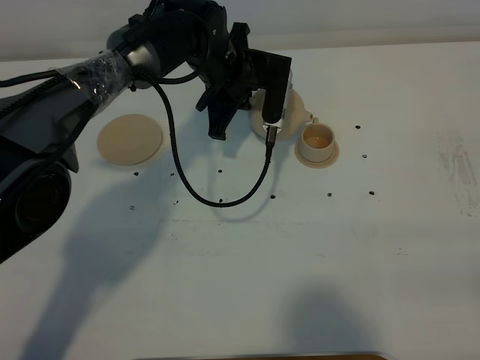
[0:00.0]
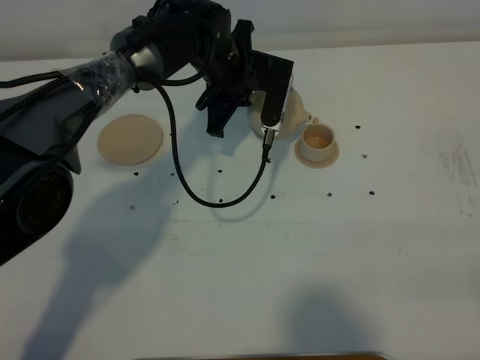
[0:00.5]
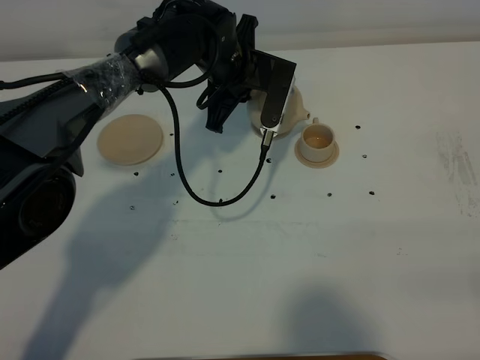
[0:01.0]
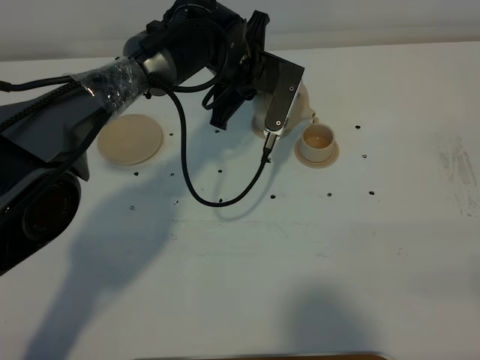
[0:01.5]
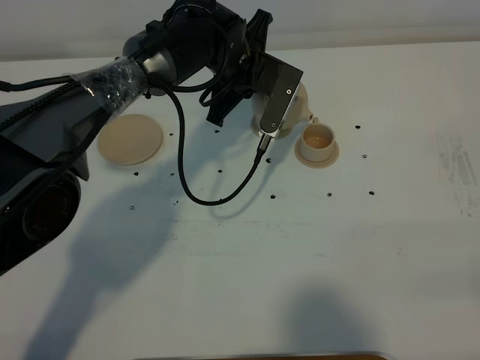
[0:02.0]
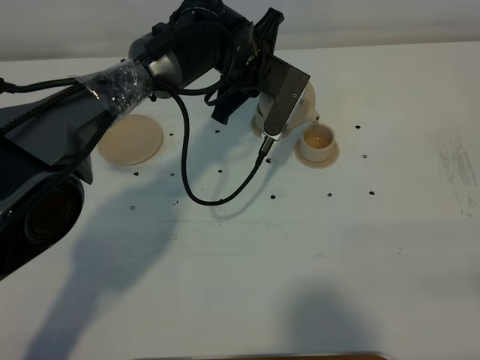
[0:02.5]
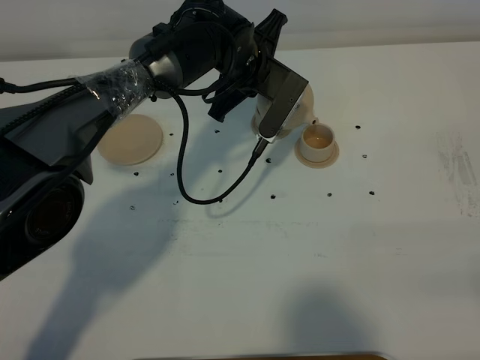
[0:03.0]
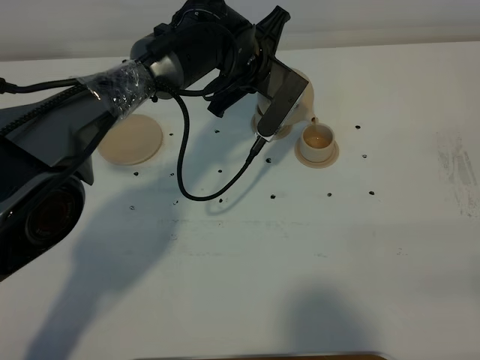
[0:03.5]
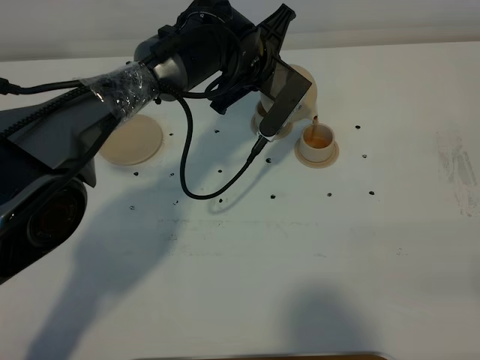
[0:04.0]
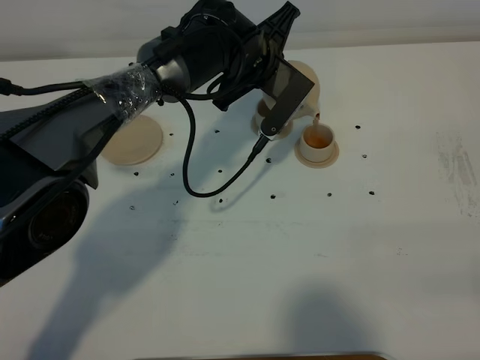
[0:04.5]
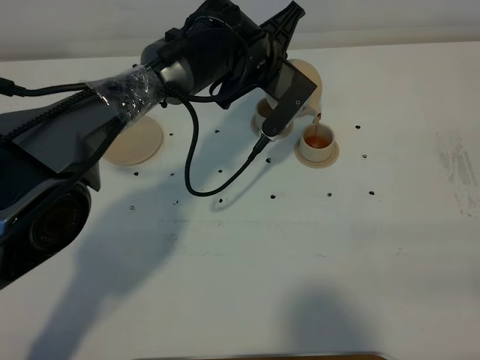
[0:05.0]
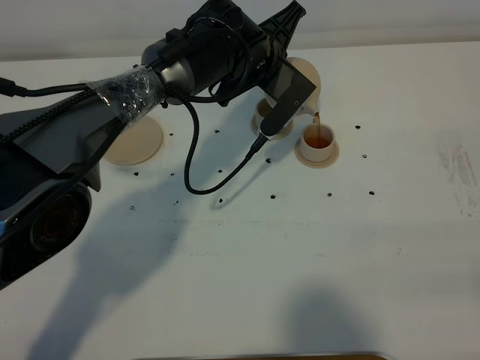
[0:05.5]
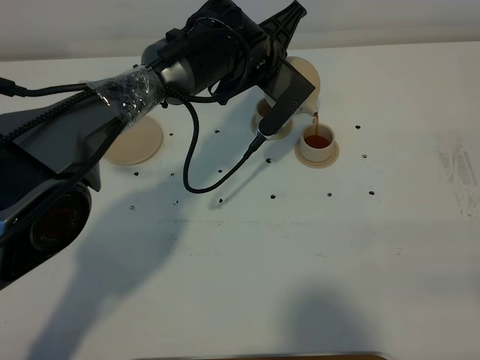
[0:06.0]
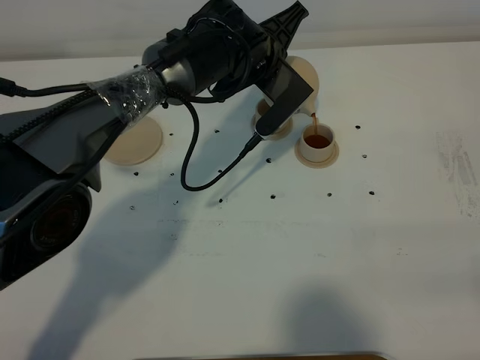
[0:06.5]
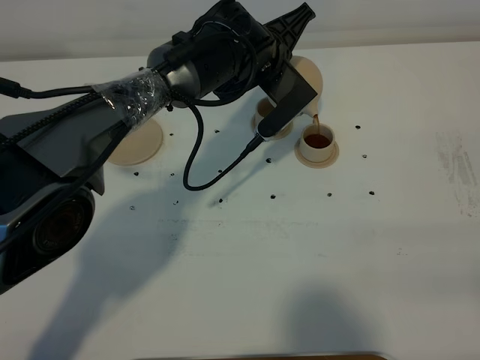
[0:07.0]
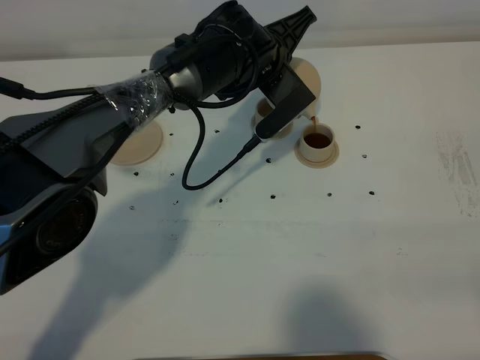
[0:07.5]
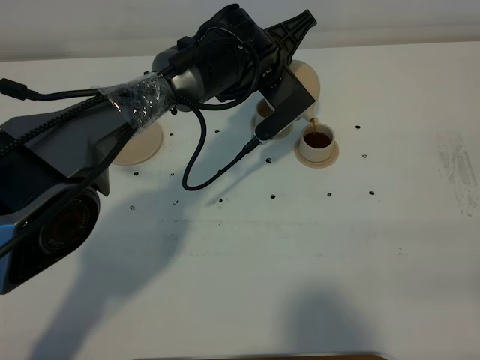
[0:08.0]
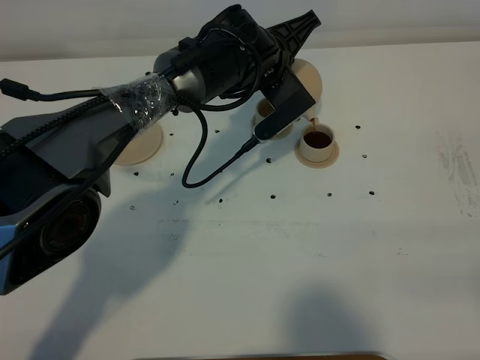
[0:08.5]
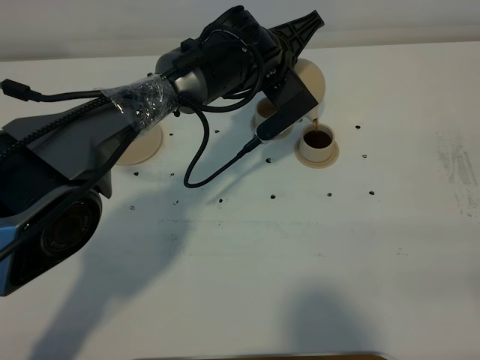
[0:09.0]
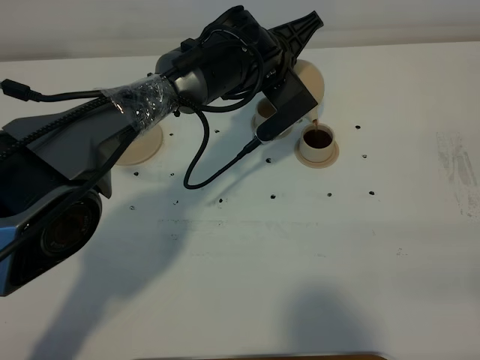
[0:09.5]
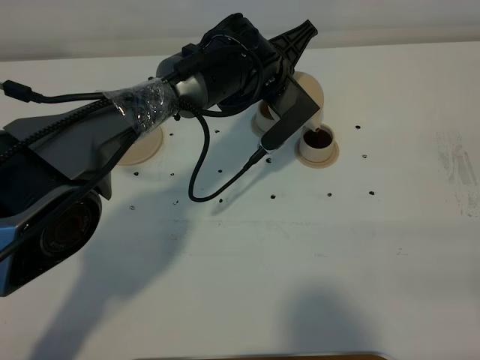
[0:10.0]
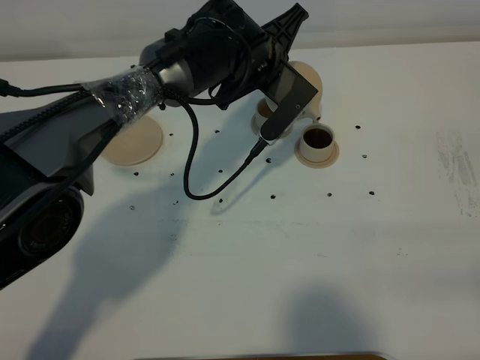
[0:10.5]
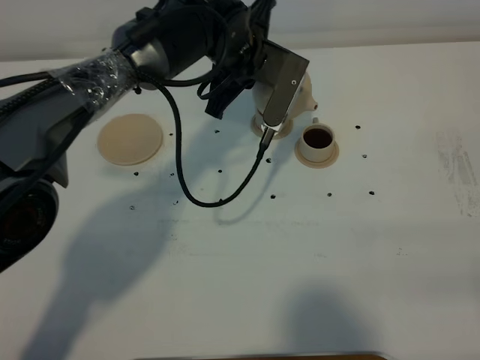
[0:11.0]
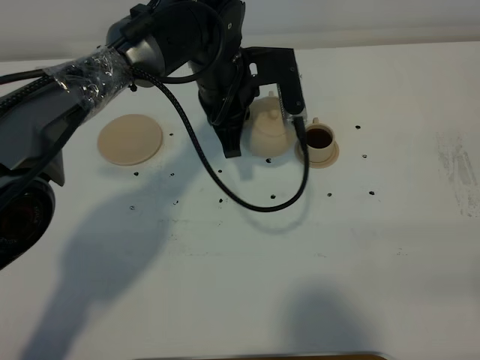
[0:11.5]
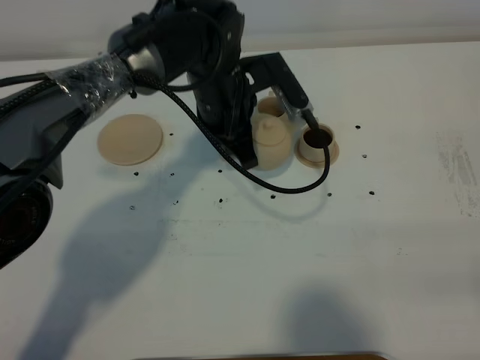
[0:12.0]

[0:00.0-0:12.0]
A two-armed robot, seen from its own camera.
Task of the whole recording: grasp the brown teapot and pour the tea into the two brown teacups one by one, put the brown teapot back in its original place.
0:00.0 to 0:02.0: The grippers make only small movements.
0:02.0 to 0:04.0: The grippers move only a little.
0:04.0 to 0:08.0: The grippers make only small movements.
0:08.0 to 0:10.0: Both grippers stay about where they are.
0:10.0 to 0:12.0: The left gripper moves approximately 5 cm.

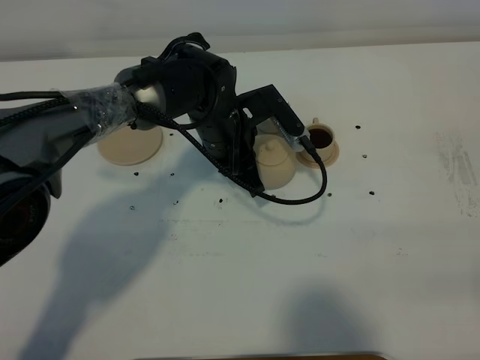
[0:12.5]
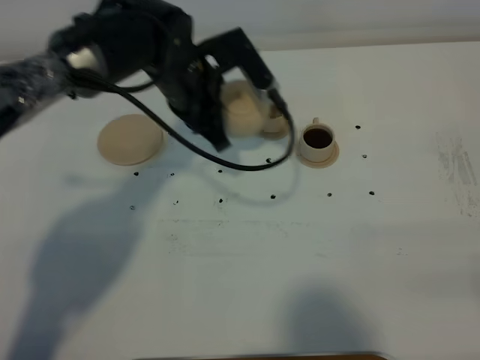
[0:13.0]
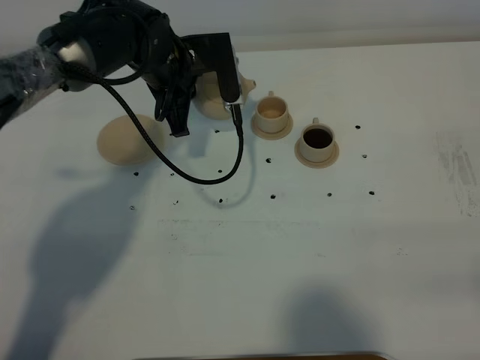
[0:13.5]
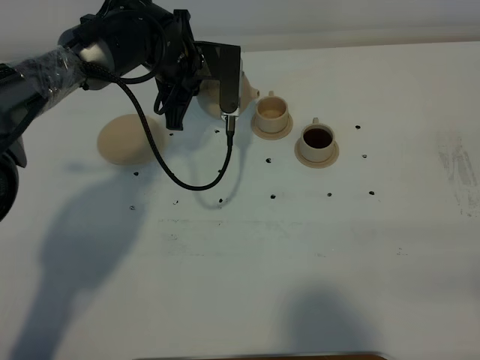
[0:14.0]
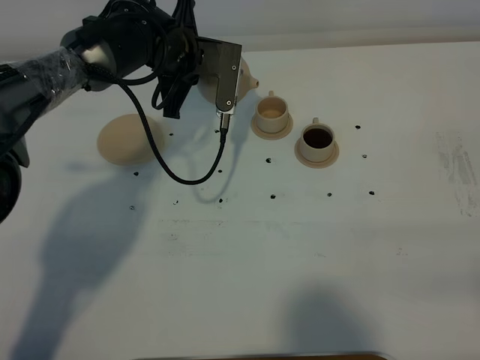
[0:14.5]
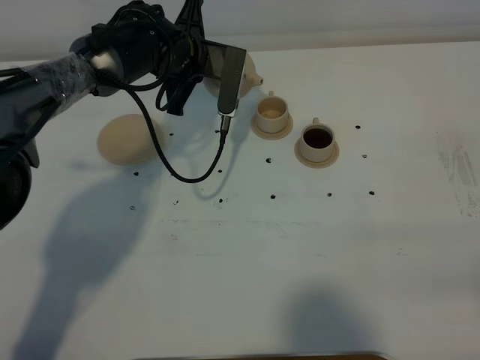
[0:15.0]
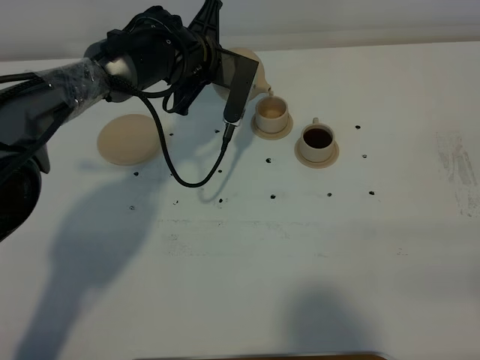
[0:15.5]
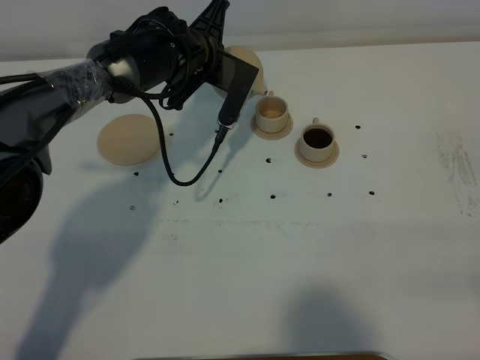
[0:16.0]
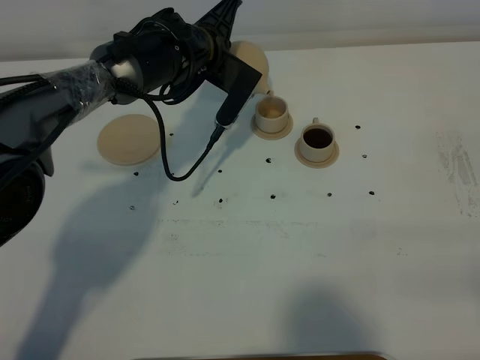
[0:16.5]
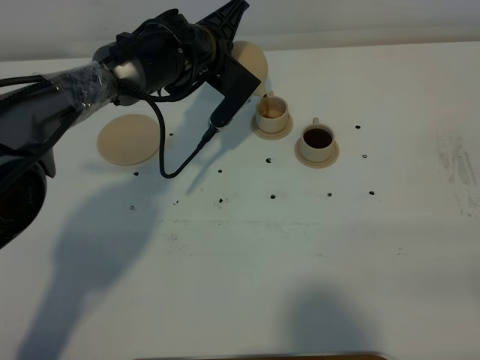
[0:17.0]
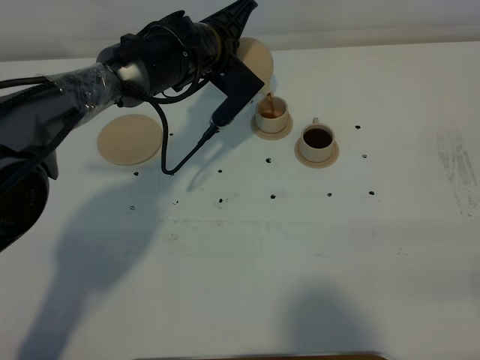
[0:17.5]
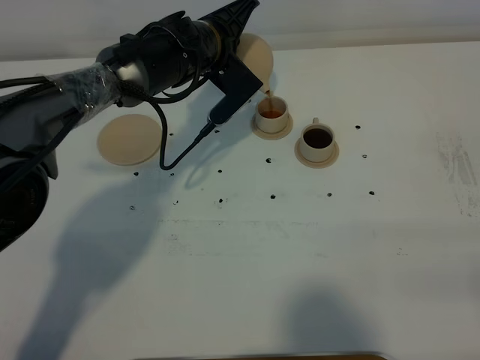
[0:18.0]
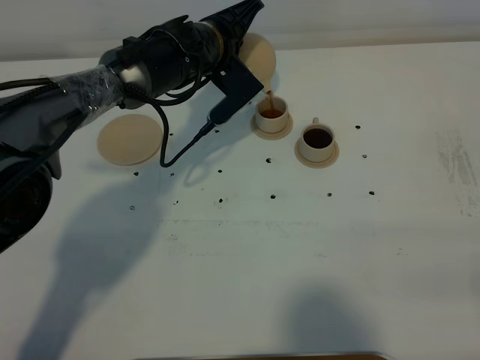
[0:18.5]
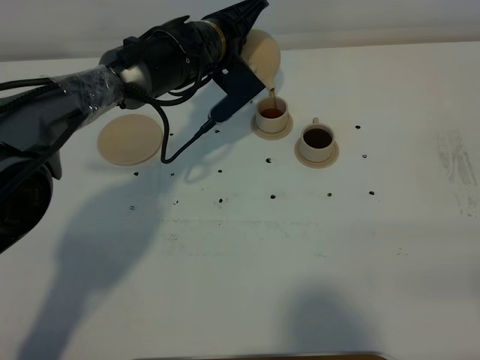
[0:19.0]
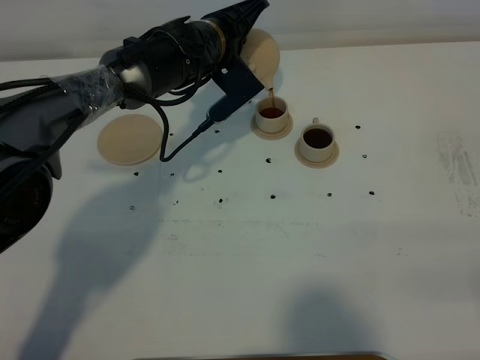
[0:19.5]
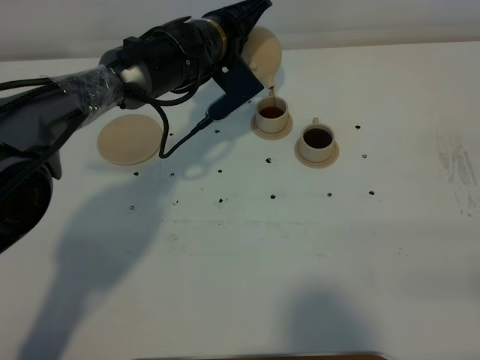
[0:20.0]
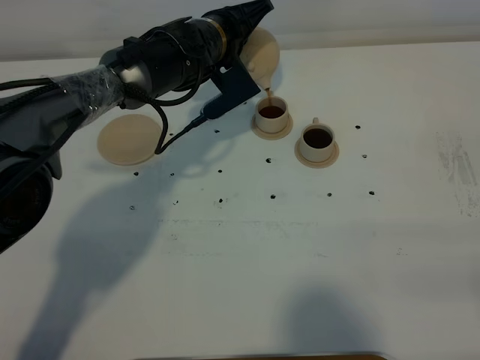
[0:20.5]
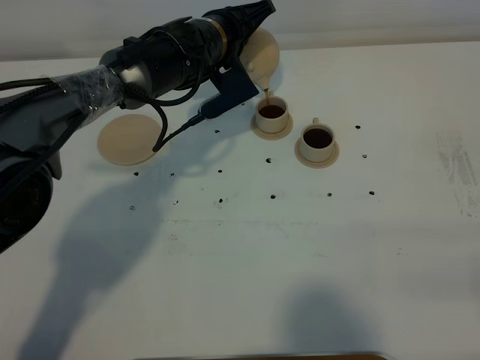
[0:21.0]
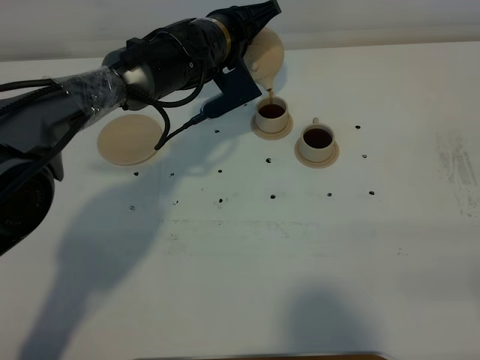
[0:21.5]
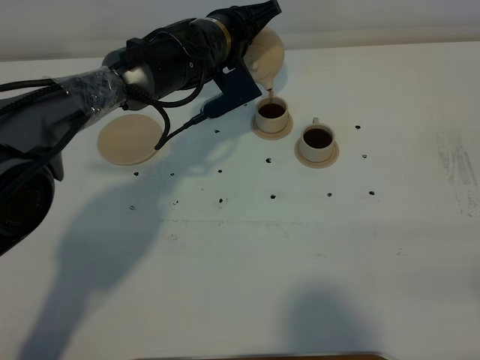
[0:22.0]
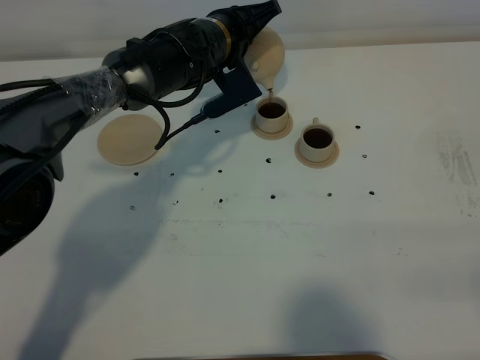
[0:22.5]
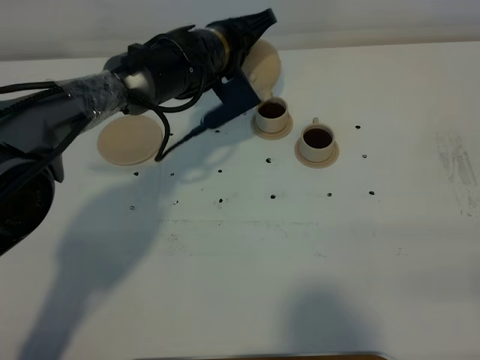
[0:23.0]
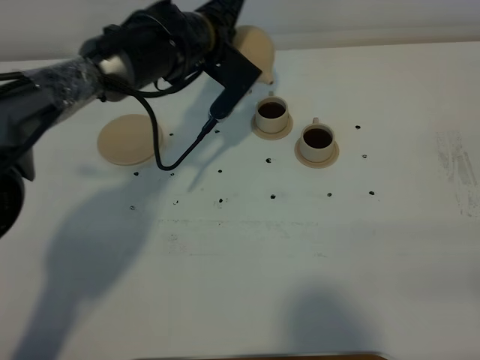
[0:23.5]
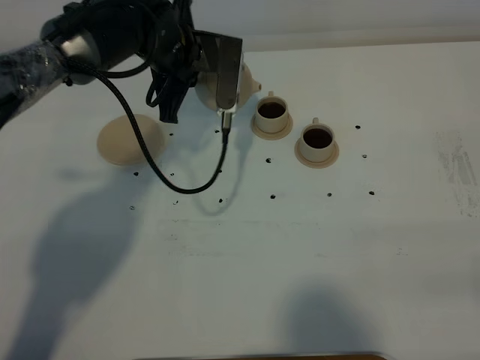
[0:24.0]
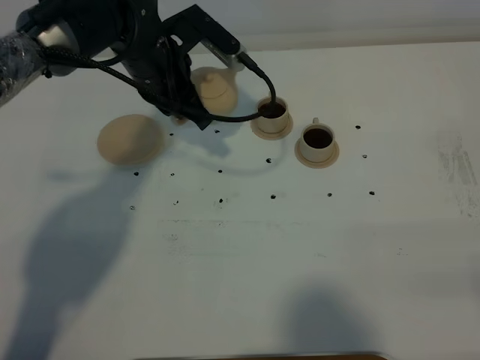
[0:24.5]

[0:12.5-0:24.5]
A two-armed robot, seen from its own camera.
Task of the whole recording: grasp the brown teapot and pour the tea into the two brown teacups one by one, put the brown teapot back in its original place.
Step, 0:12.5 to 0:23.5: Pour tea into the teacup with the left gripper.
0:12.5 to 0:14.5: The left gripper moves forward and to the left, some 10 cm.
0:16.5 to 0:18.5: The grippers make only small movements.
0:18.5 to 0:20.5: The grippers make only small movements.
0:20.5 to 0:22.5: Both grippers stay about where they are.
0:22.5 to 0:24.5: The left gripper shifts roughly 5 cm to the left.

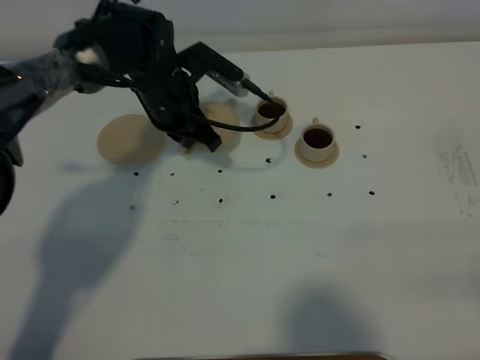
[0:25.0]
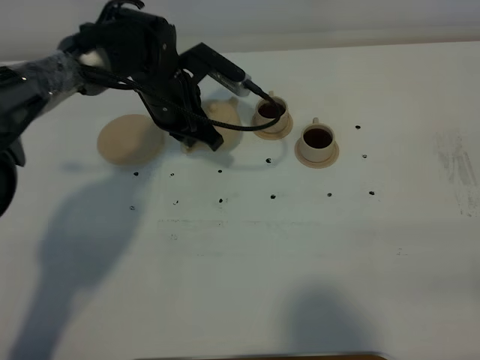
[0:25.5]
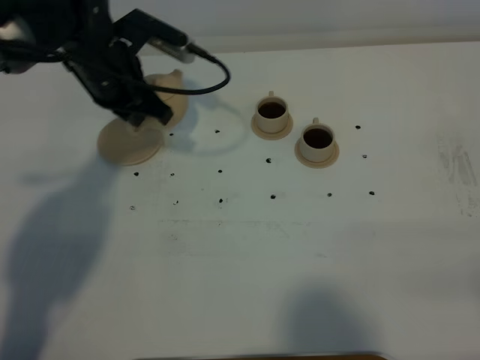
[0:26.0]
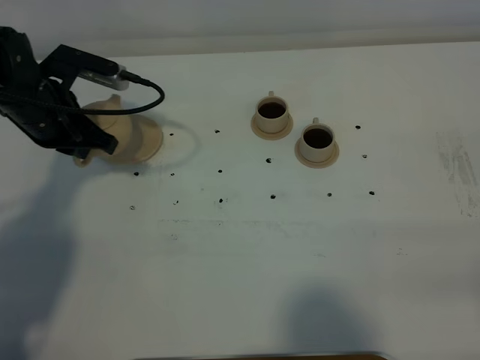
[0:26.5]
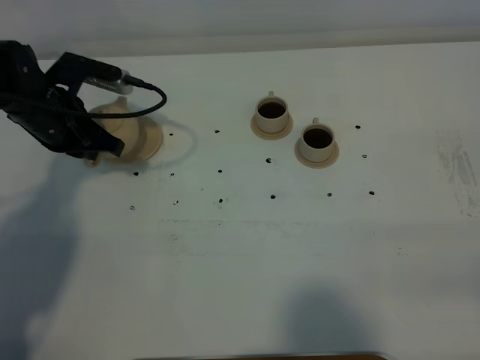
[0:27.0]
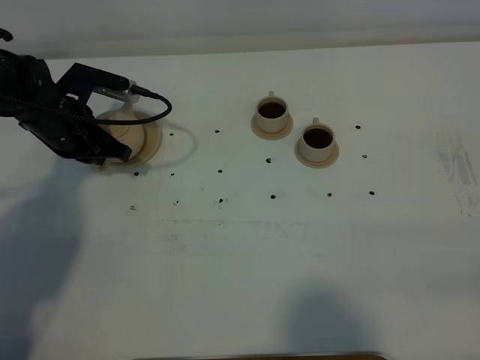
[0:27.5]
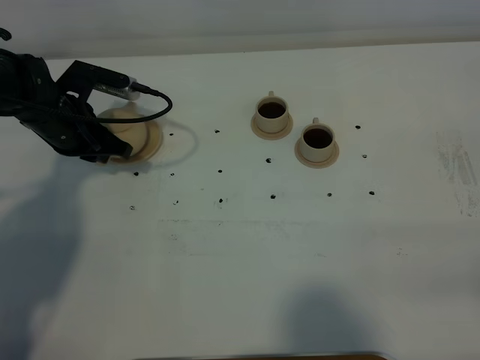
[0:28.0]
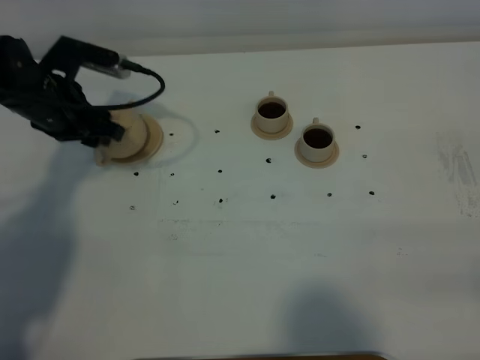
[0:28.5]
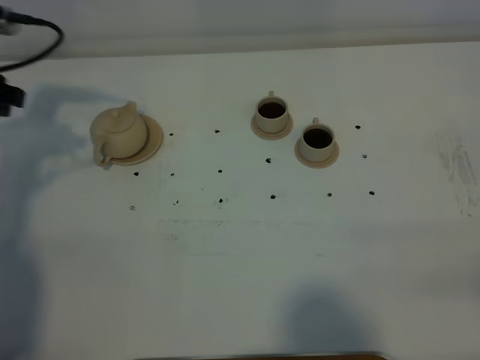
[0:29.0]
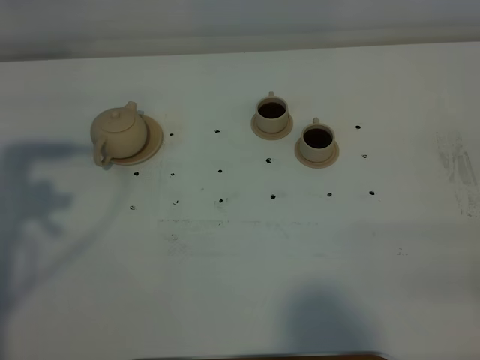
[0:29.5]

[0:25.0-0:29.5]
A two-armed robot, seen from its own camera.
Task of the whole recording: grasp the brown teapot and pour the tea into the two brown teacups one by one, put the brown teapot back in its original place.
0:25.0 to 0:27.0: The left gripper moves to the left, about 15 cm.
0:27.0 to 0:29.5: The left gripper shifts about 25 cm backward, upward and to the left, and opens its fingers.
